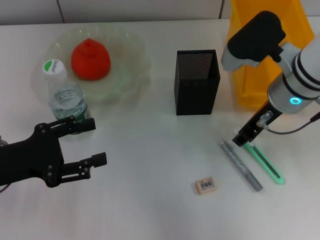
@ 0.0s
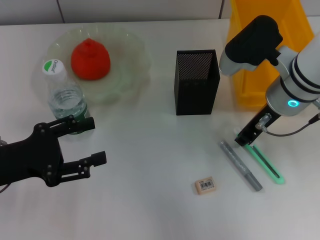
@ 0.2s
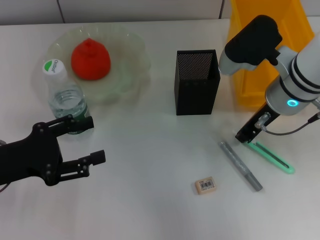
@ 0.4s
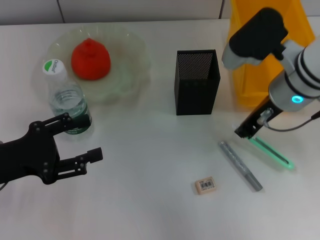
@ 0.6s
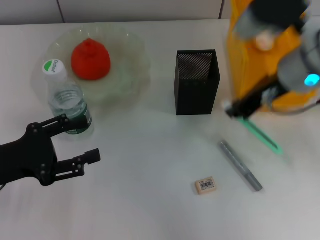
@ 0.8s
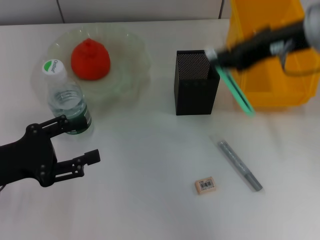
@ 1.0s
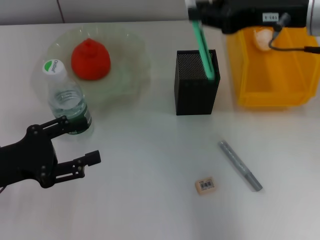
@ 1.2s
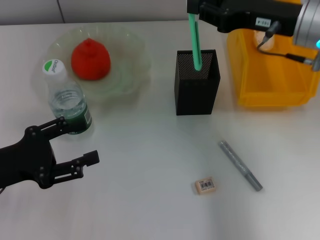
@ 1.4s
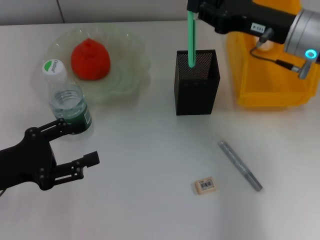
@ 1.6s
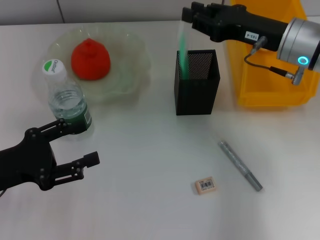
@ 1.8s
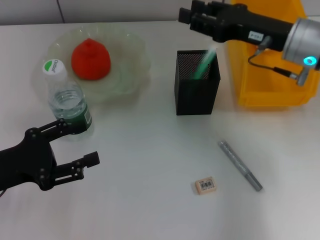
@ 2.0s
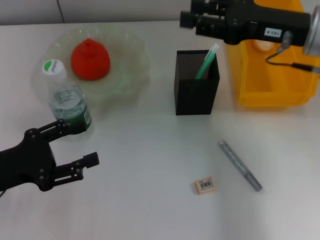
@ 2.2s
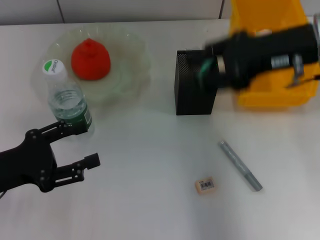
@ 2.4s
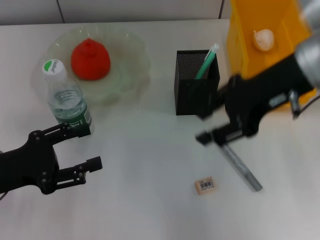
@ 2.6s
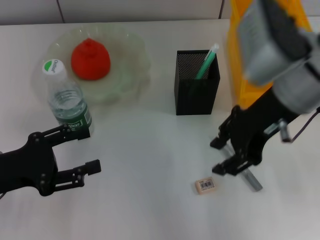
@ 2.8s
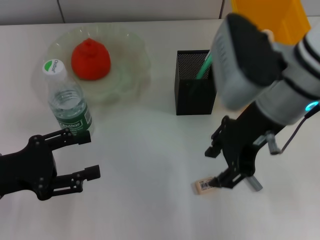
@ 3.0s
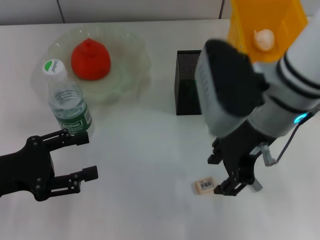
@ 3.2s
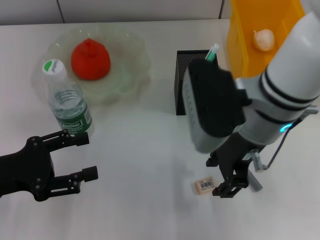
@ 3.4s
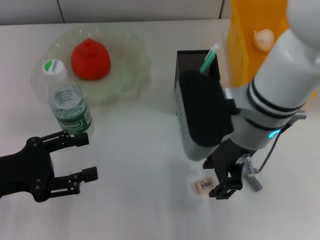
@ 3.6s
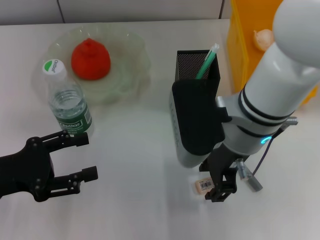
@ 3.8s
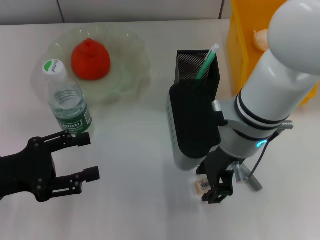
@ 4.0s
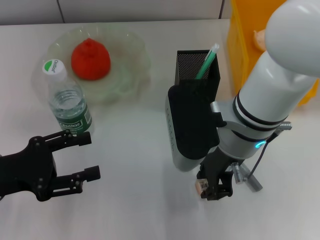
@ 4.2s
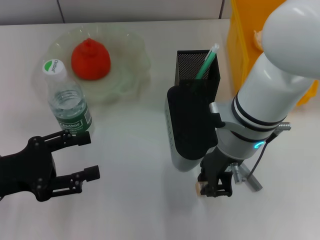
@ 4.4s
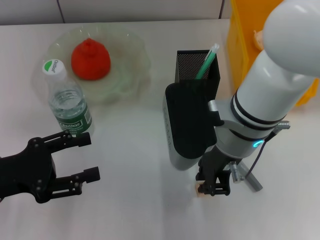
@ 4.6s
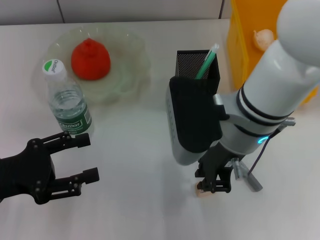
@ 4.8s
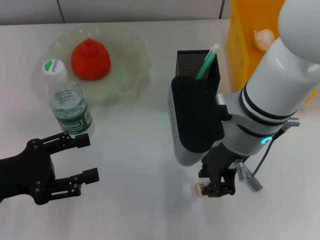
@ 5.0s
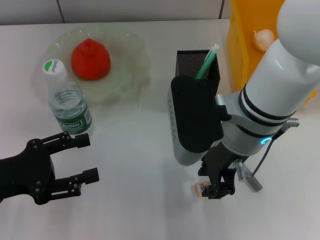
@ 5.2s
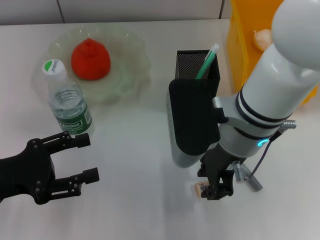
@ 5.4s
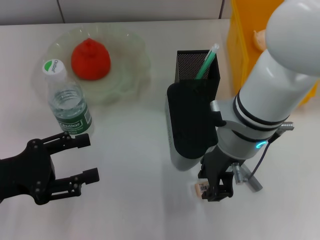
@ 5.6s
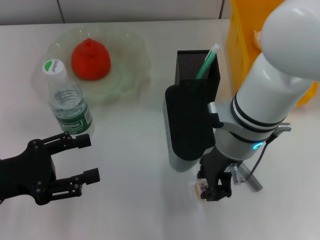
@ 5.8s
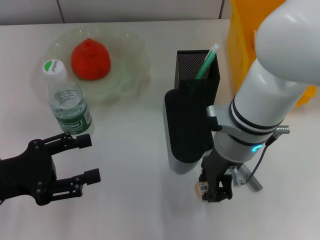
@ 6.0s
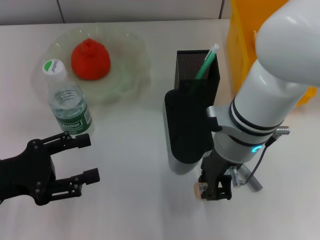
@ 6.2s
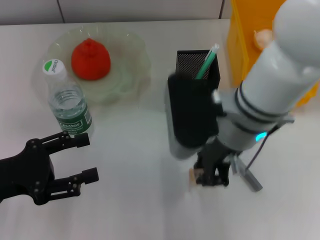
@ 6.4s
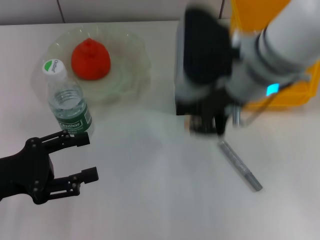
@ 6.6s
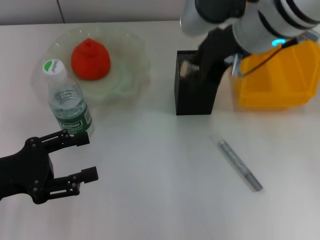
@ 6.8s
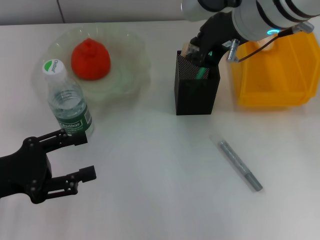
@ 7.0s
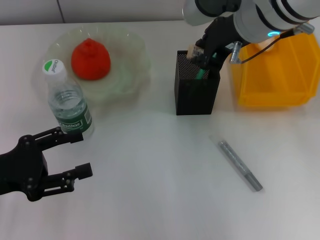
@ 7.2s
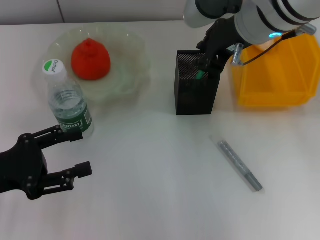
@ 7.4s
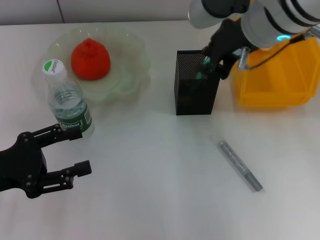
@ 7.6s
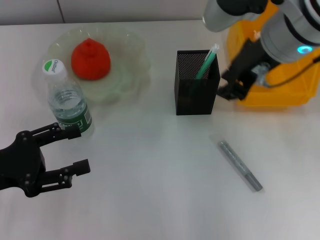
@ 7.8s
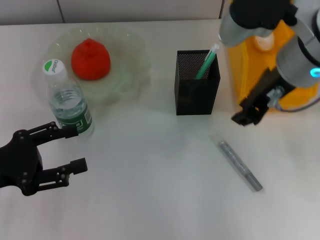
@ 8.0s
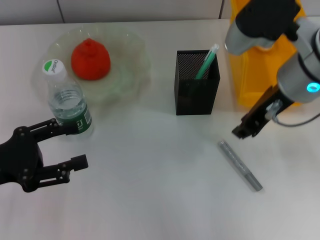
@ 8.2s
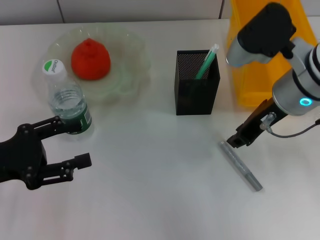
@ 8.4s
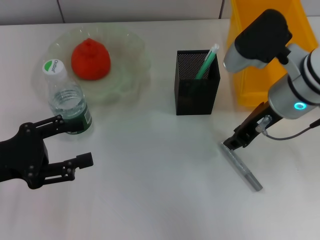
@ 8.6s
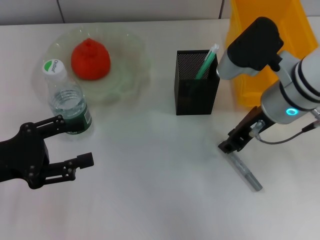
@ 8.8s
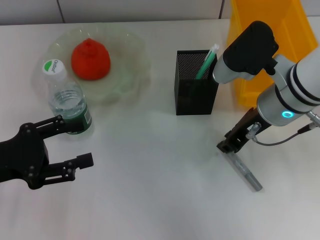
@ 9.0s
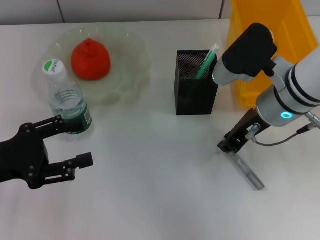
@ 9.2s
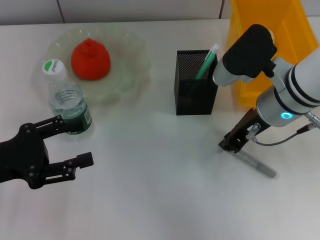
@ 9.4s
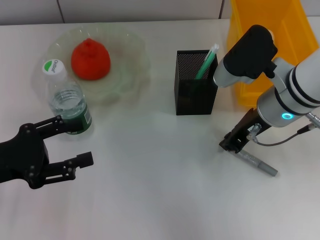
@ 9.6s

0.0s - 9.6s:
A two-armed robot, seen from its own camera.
Step, 0.4s - 2.2s: Place the blue utility knife into the pen holder with the right hand.
Step, 2.4s - 6.0s: Grab the eraser with the right hand.
Step, 6.2s - 7.2s: Put the eraser into the pen holder with the right hand.
Step, 7.4s - 9.6s: Grab the gray glue with the right hand.
0.0s - 1.6s: The right gripper goes upward and returns, approximately 10 cm each way.
1.6s - 3.2s: The right gripper is displaced to the left and backward by roughly 10 cm, and opens its fingers.
3.2s - 4.8s: The right gripper closes up.
4.8s - 6.4s: The grippers make only small movements.
6.4s - 8.0s: The right gripper heads to the right and upward, covering approximately 10 cm.
8.0s - 9.6s: The right gripper travels downward by some 10 cm.

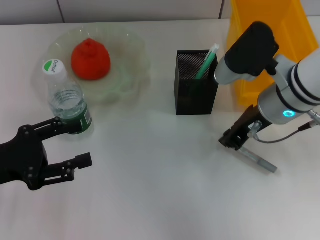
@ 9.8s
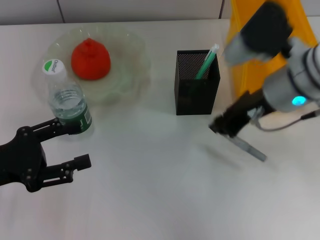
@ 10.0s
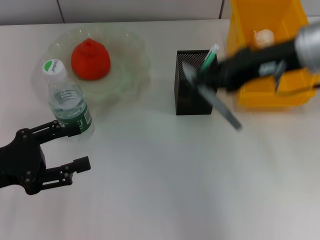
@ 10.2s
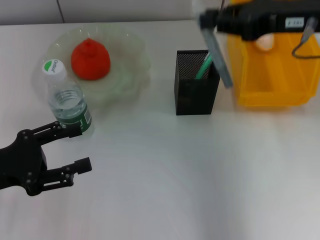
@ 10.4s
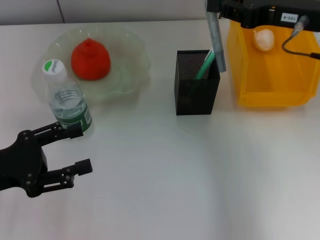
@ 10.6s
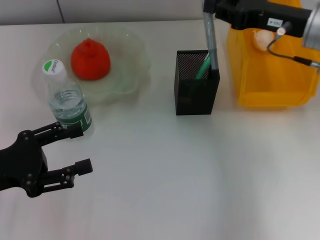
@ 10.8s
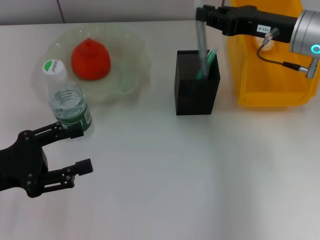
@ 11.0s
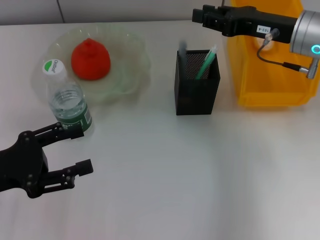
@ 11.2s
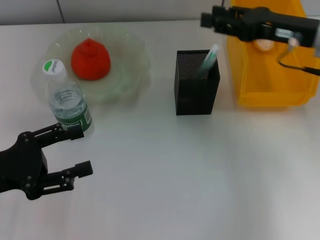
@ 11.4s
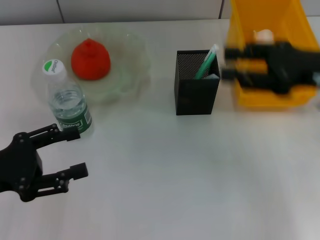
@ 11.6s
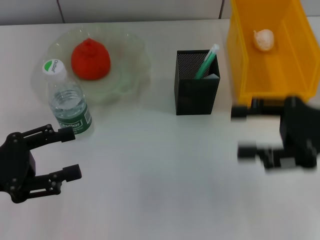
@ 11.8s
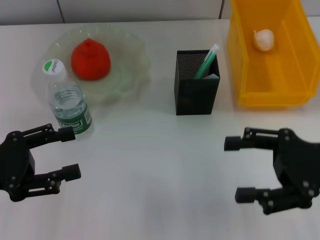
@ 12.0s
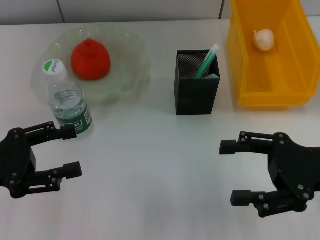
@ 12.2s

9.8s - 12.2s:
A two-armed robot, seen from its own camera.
Step, 9.8s - 11.2s: Place the gray glue into the pen holder with the right hand.
9.8s - 11.0s: The right gripper goes approximately 5 cm to the right, and travels upward and back again, some 10 cm each way.
11.0s - 12.2s: The right gripper travels backward by approximately 15 cm, and opens up.
